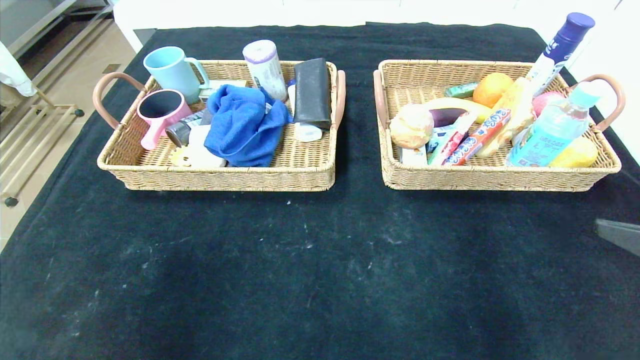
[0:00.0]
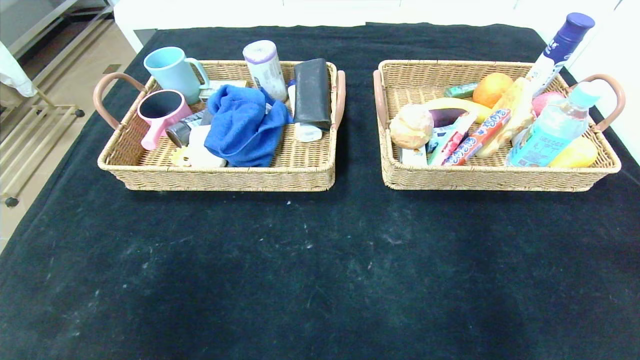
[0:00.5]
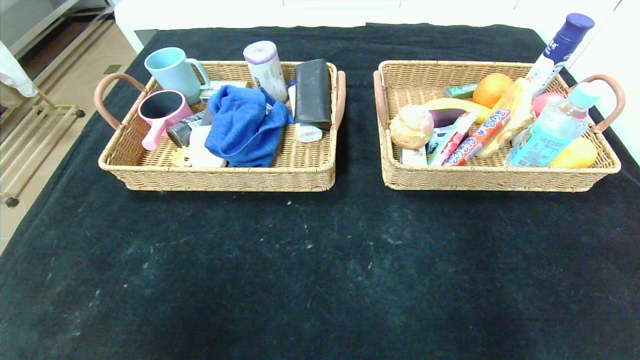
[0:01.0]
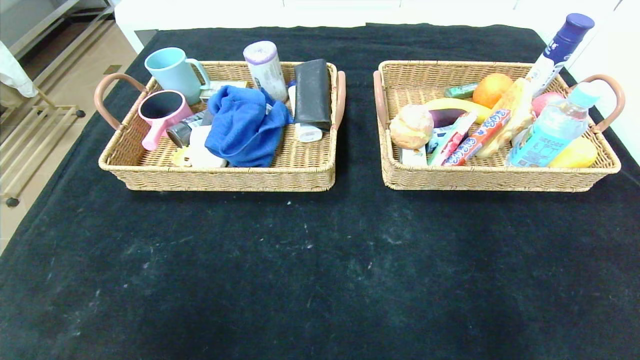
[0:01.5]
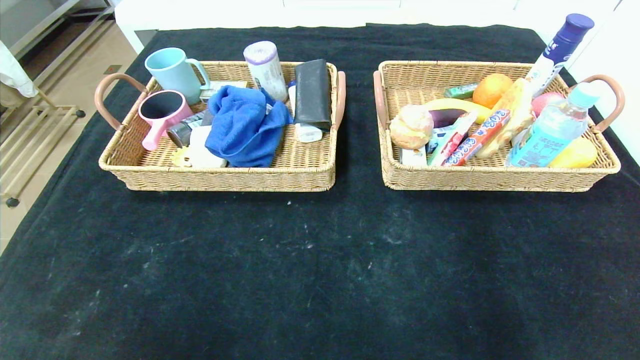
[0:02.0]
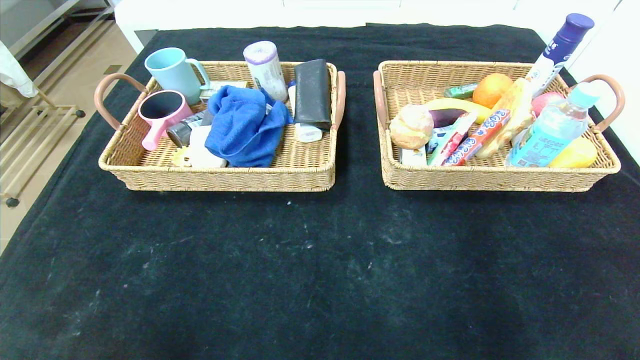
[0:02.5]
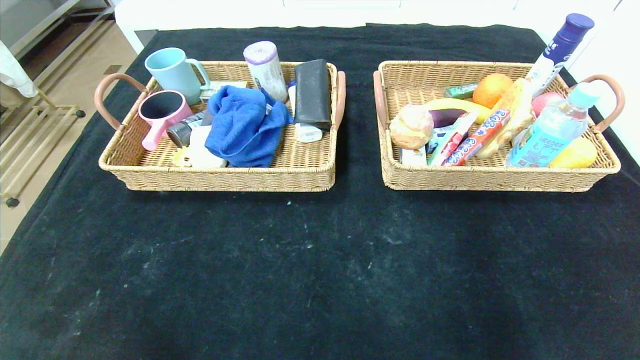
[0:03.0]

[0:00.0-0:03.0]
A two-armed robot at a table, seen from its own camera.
0:00.0 to 0:01.5: The left gripper shifts some 10 cm backward. Meanwhile the right gripper travels backward and downward by roughly 25 cm.

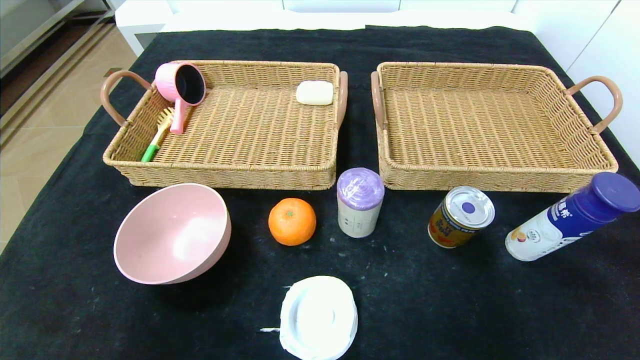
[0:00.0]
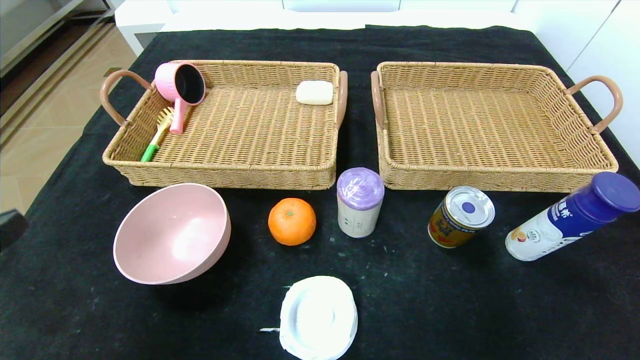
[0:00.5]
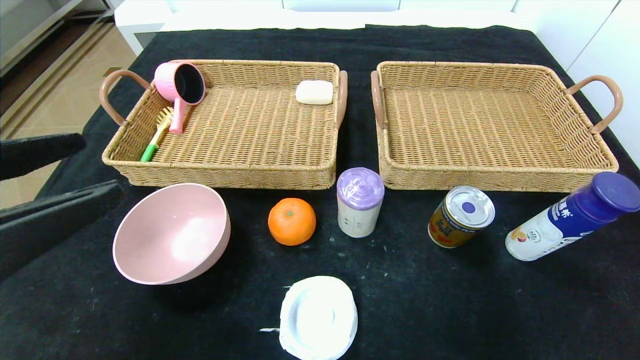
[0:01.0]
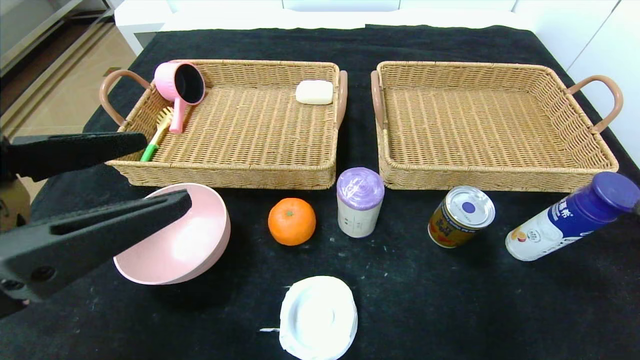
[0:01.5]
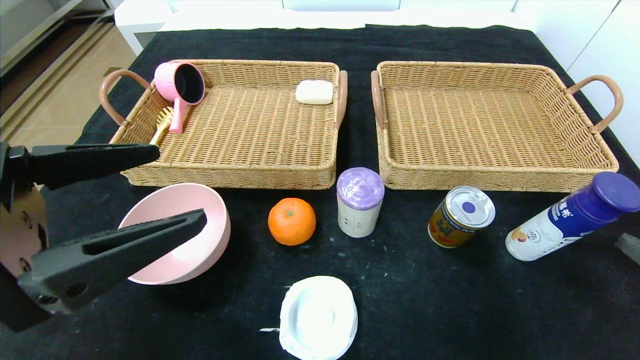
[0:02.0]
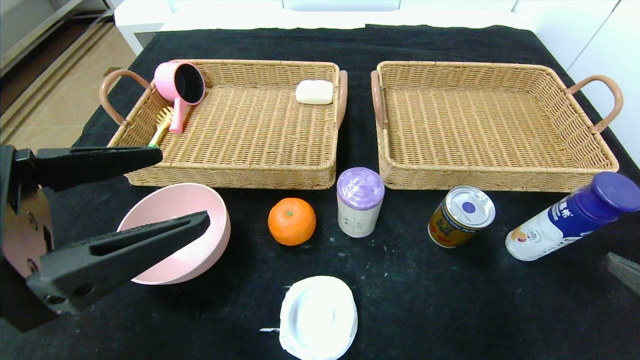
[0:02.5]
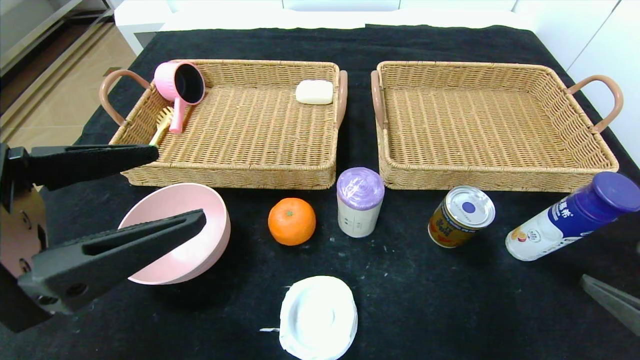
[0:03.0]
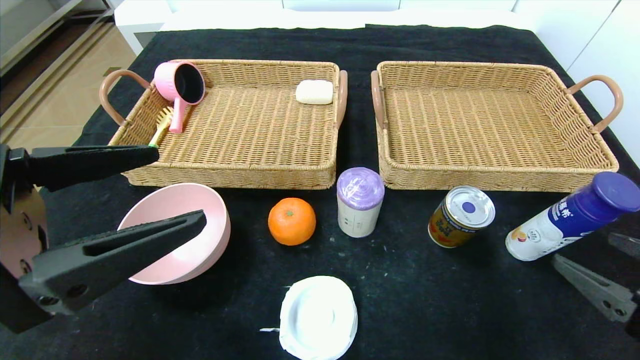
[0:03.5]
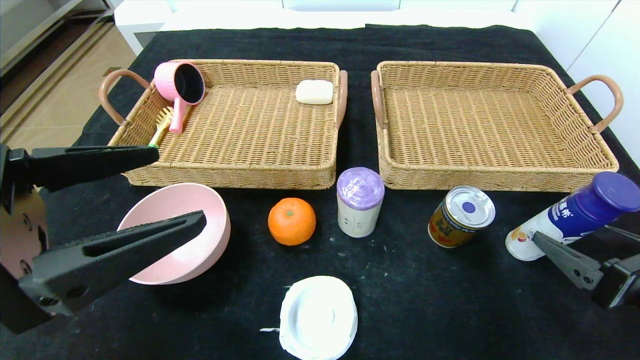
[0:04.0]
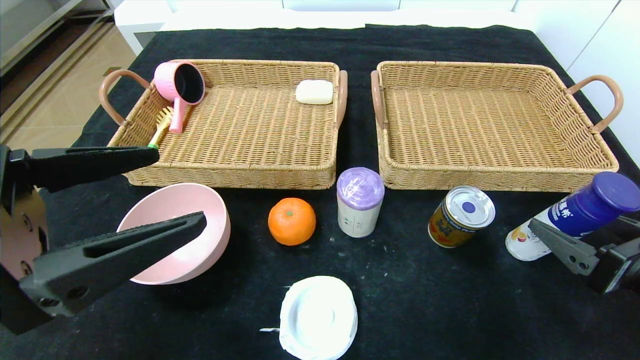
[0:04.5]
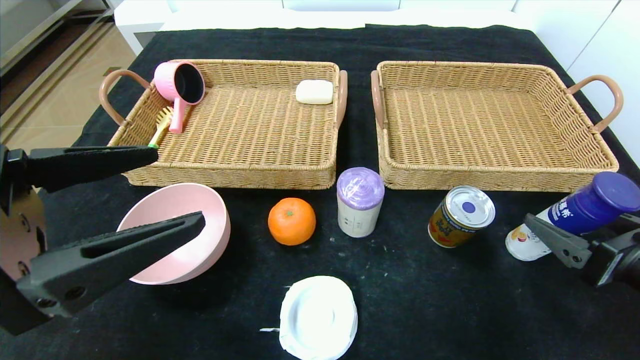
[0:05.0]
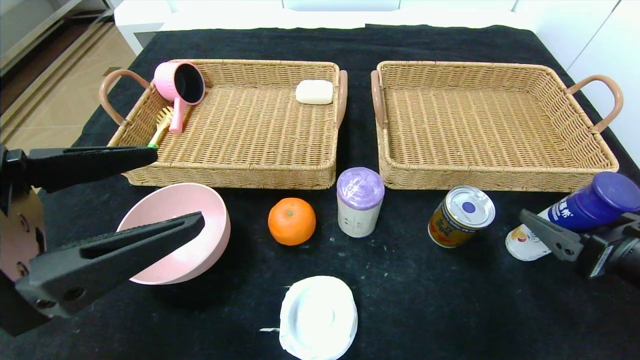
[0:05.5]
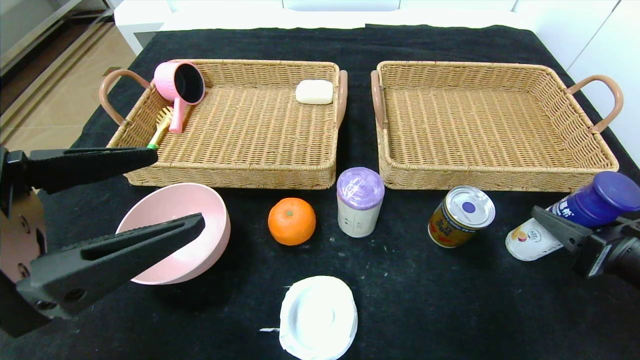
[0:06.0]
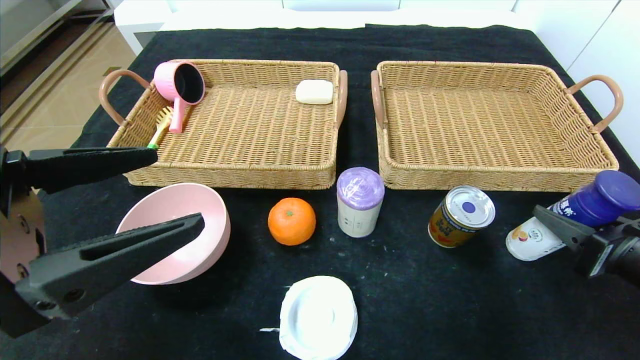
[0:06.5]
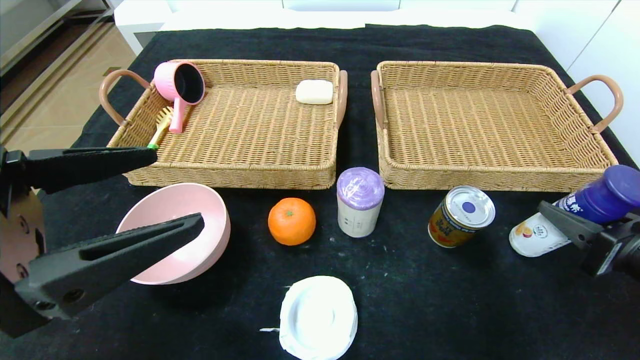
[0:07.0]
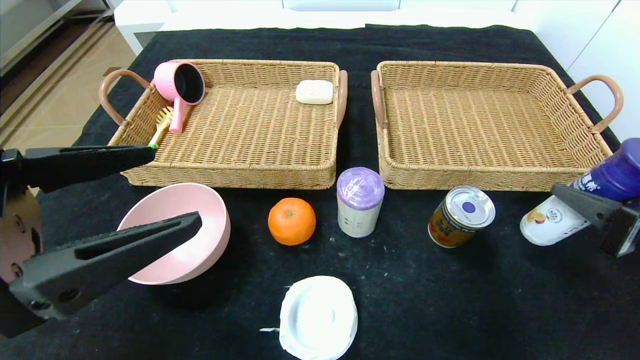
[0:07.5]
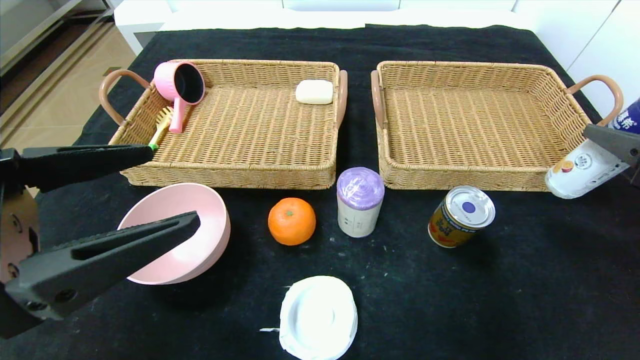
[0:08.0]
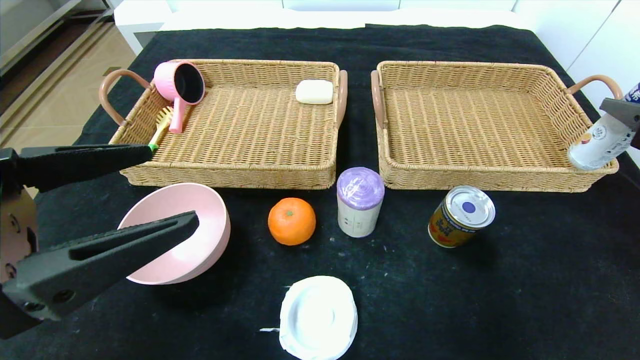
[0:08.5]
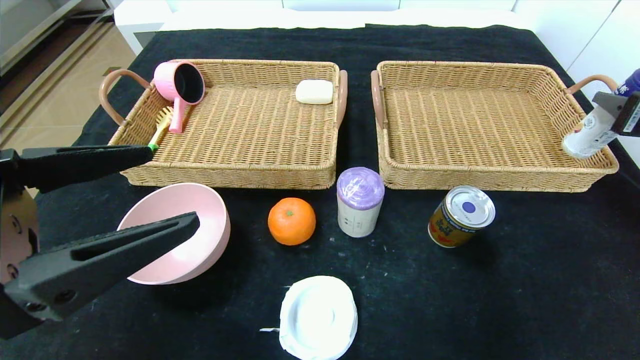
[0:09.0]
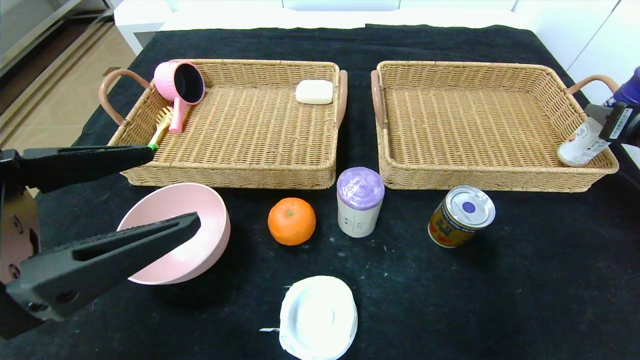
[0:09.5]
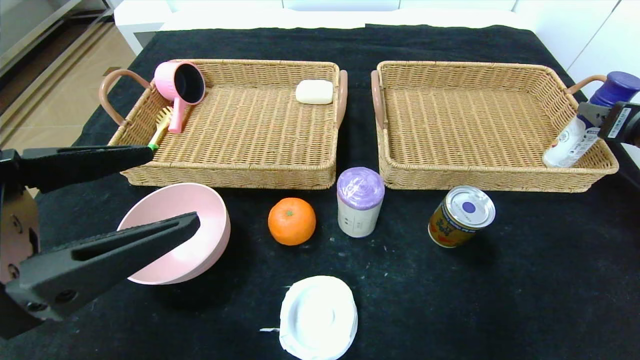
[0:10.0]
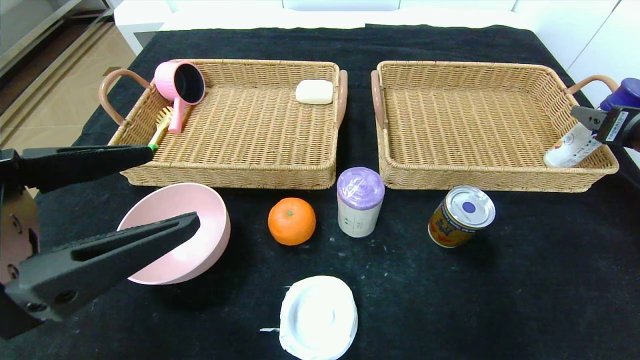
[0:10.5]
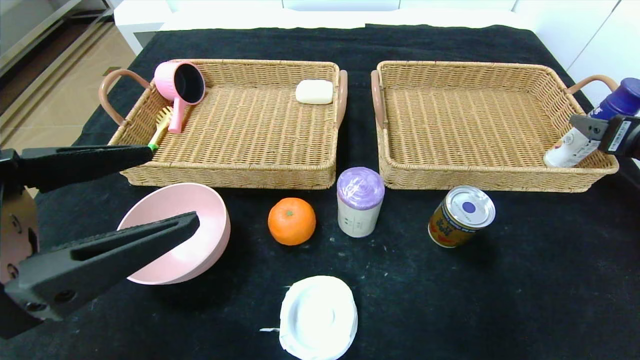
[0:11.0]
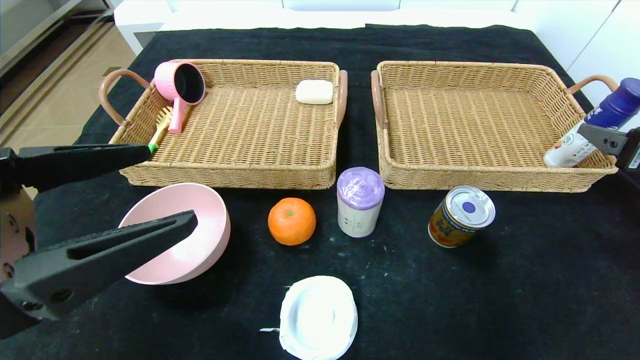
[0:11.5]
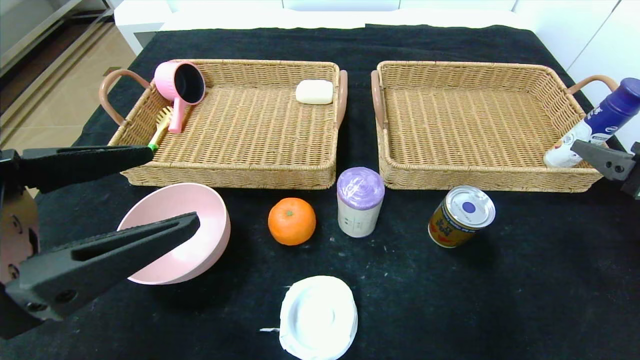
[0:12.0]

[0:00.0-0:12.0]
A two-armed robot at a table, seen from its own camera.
Step, 0:00.0 to 0:10.0: Grasp the yogurt and put it in the right basket.
0:00.0 to 0:02.0: The left gripper moves forward and to the right, about 15 cm. Meanwhile the right gripper moves forward, approximately 5 cm.
0:02.0 to 0:04.0: The right gripper is displaced forward and downward by about 10 cm.
0:04.0 to 0:06.0: The right gripper closes.
0:06.0 to 0:08.0: The right gripper goes some 10 cm upward.
0:08.0 to 0:10.0: The right gripper travels forward and to the right by some 15 cm, and opens.
0:10.0 to 0:12.0: The right gripper shifts roughly 10 cm backward and to the left, and opens.

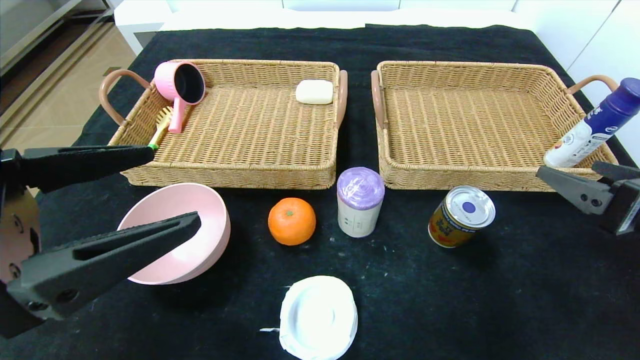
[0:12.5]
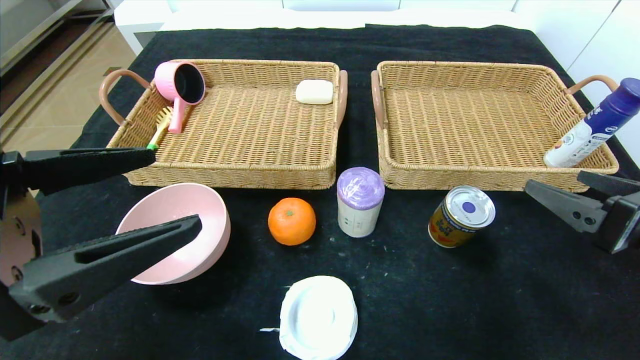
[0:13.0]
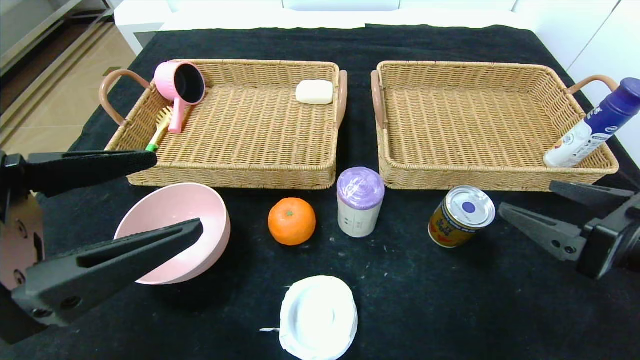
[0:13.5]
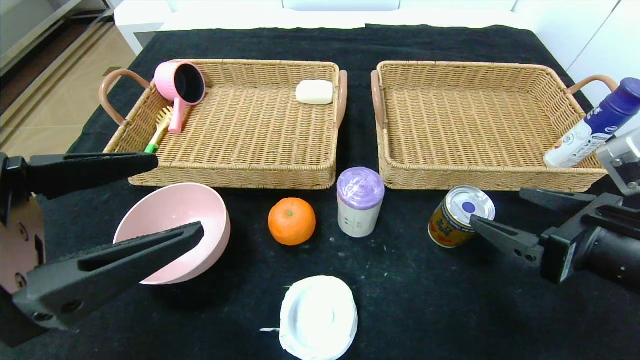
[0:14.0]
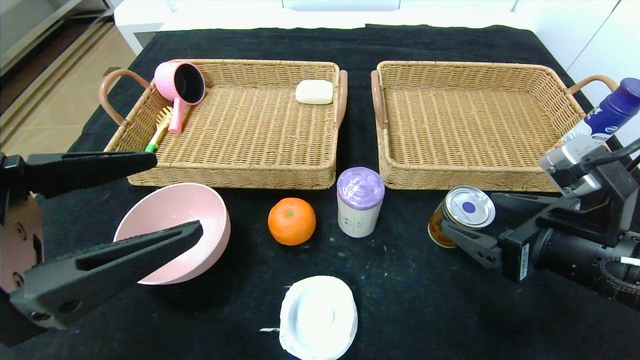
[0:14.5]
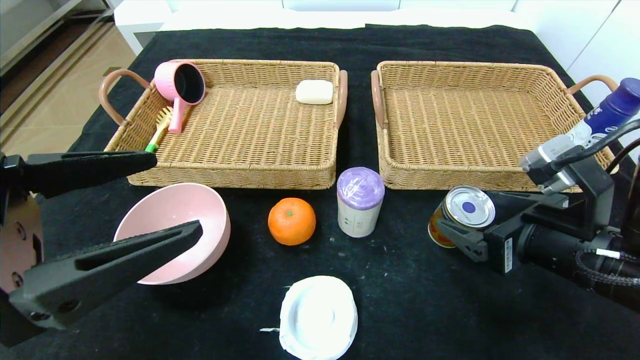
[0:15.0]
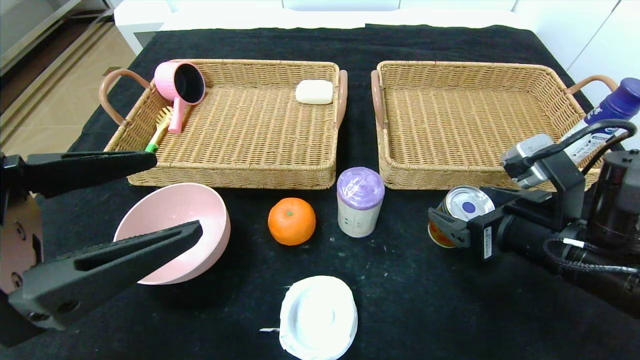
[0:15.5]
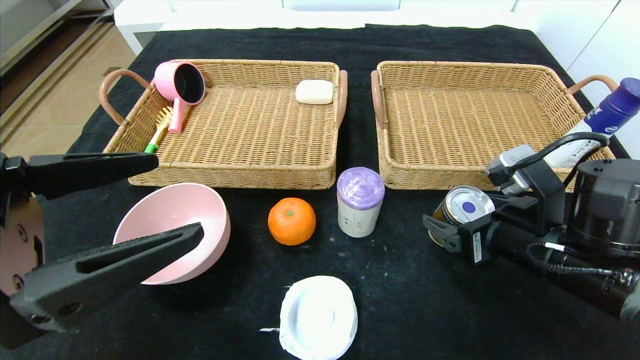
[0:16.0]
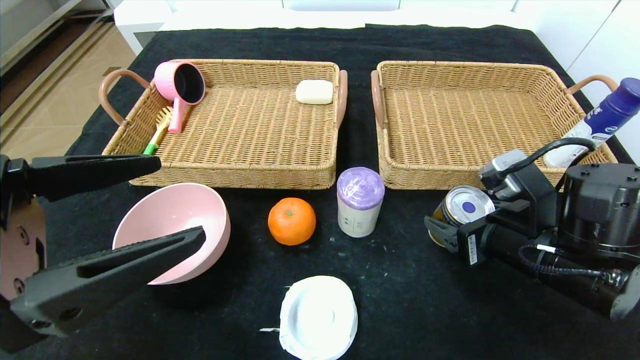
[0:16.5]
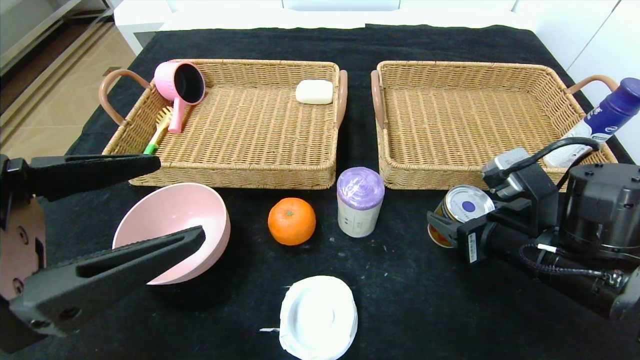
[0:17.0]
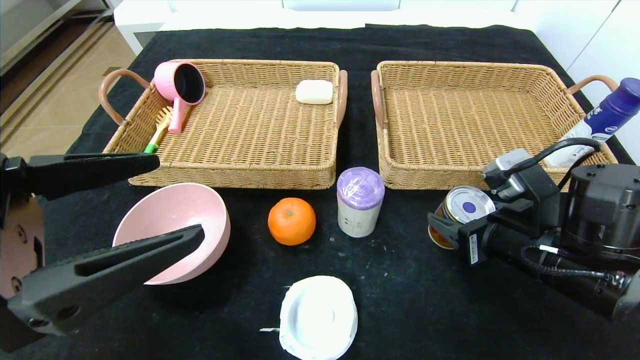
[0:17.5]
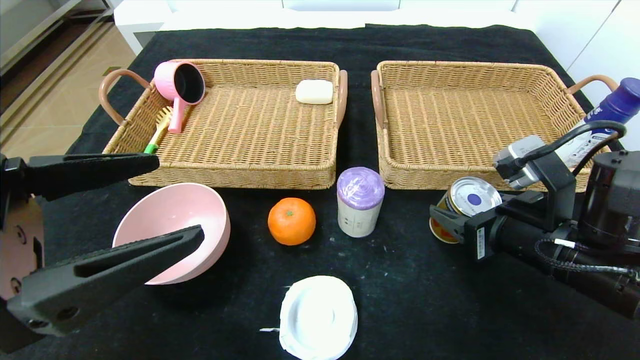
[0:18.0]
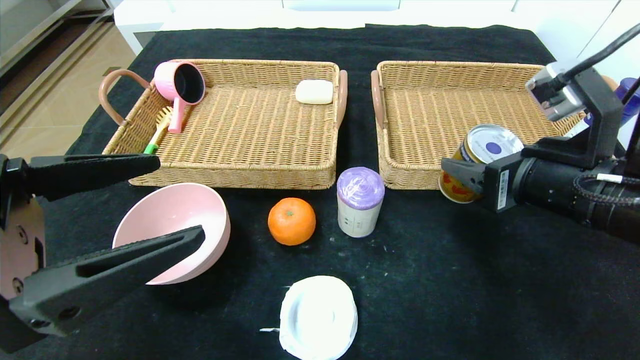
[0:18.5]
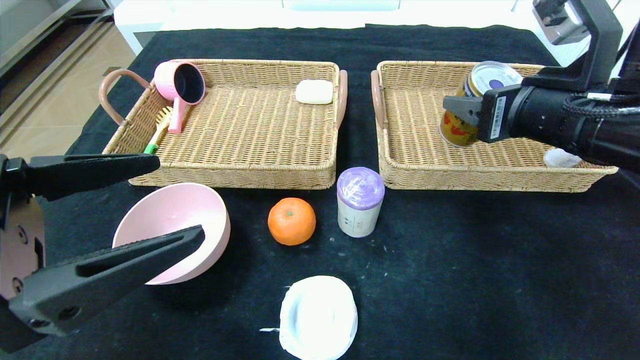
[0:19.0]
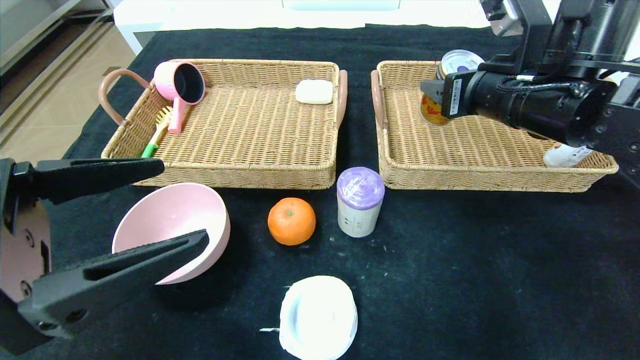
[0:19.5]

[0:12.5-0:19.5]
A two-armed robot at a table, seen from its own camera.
0:12.5 to 0:14.5: The right gripper moves to the left, approximately 10 cm.
0:14.5 to 0:16.0: The grippers move only a little.
0:16.0 to 0:17.5: The right gripper closes its fingers.
0:17.5 to 0:19.5: The right gripper moves upward and forward, about 15 cm.
